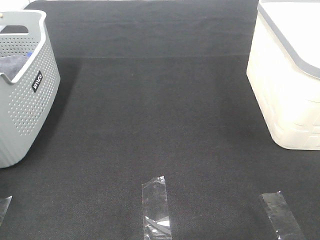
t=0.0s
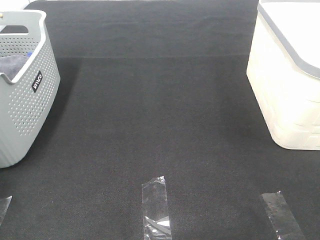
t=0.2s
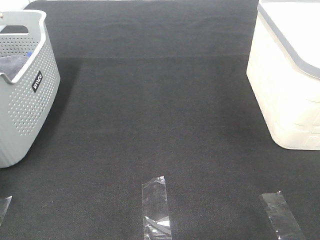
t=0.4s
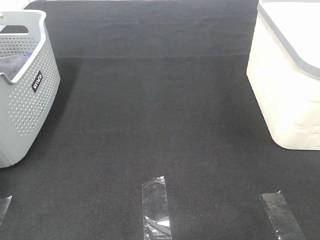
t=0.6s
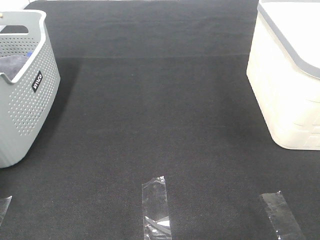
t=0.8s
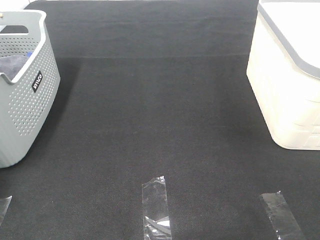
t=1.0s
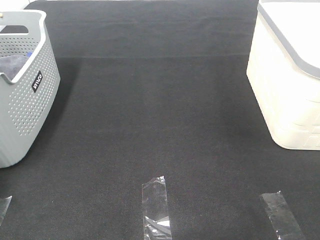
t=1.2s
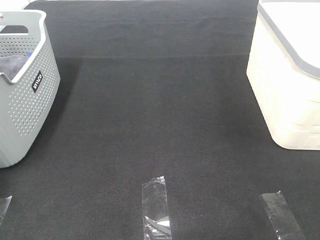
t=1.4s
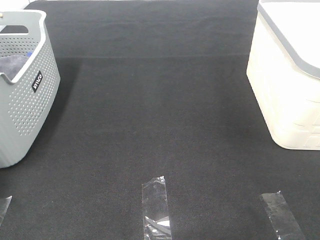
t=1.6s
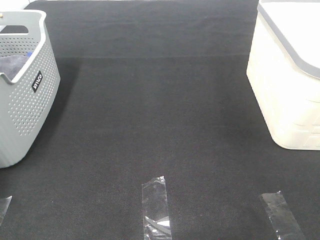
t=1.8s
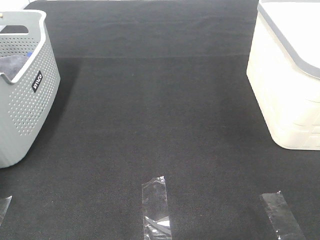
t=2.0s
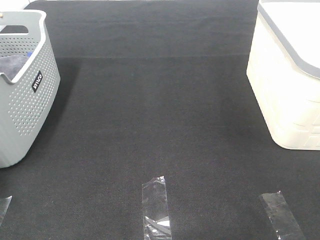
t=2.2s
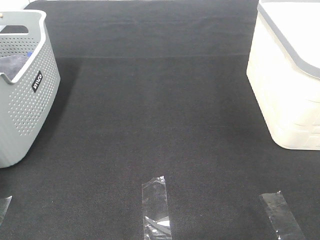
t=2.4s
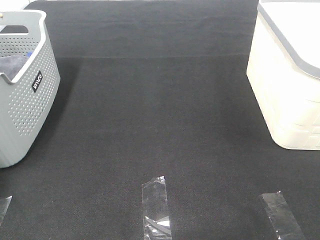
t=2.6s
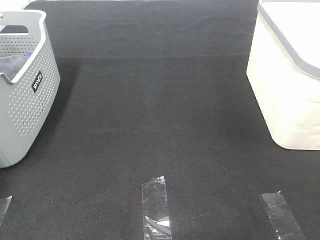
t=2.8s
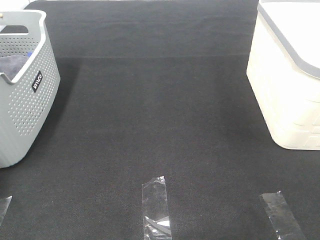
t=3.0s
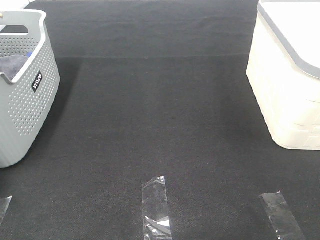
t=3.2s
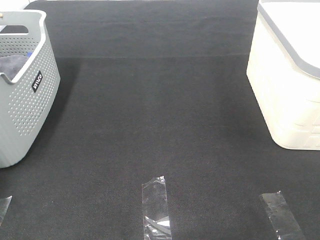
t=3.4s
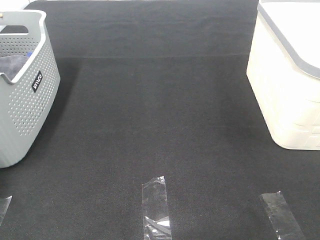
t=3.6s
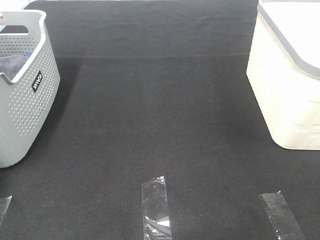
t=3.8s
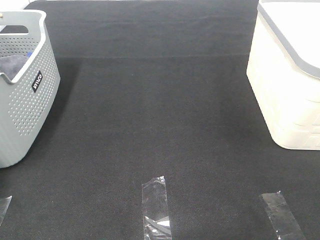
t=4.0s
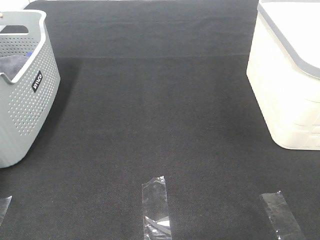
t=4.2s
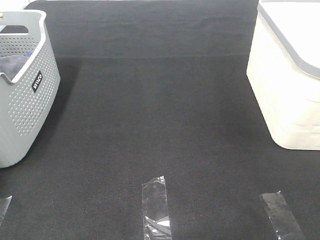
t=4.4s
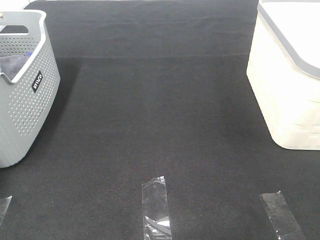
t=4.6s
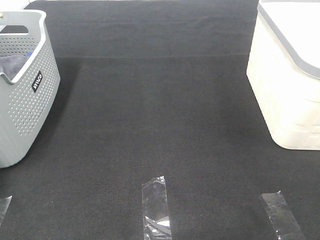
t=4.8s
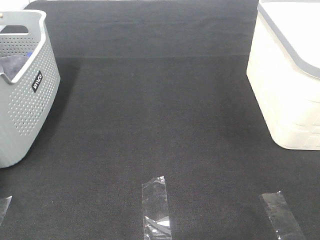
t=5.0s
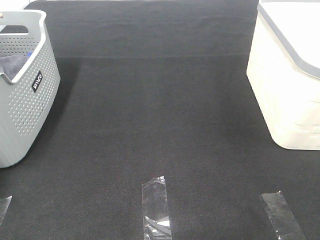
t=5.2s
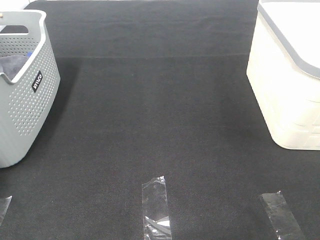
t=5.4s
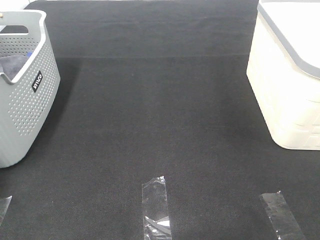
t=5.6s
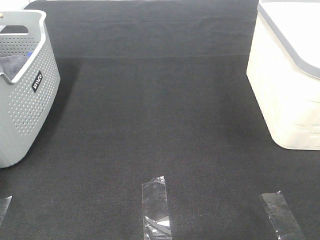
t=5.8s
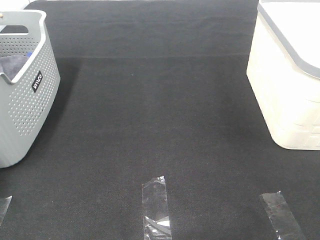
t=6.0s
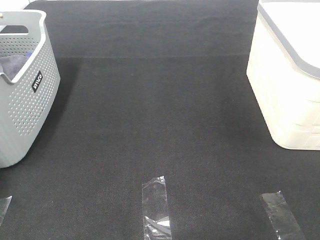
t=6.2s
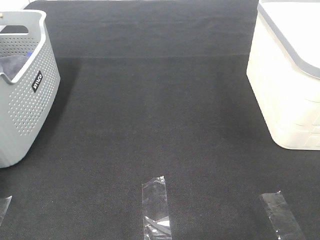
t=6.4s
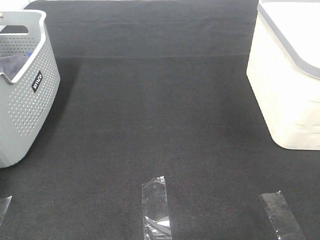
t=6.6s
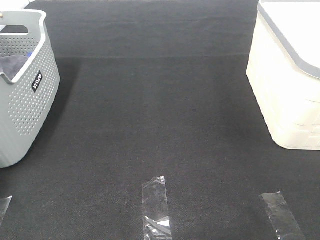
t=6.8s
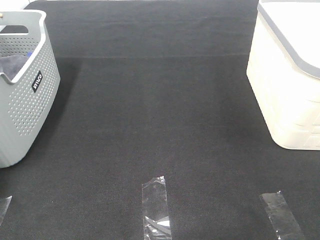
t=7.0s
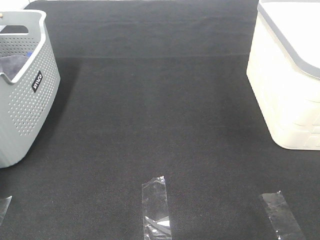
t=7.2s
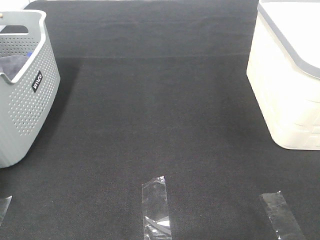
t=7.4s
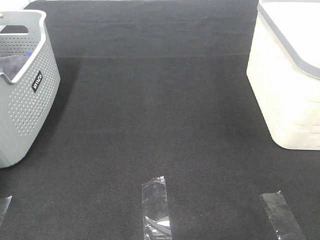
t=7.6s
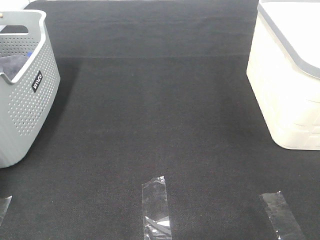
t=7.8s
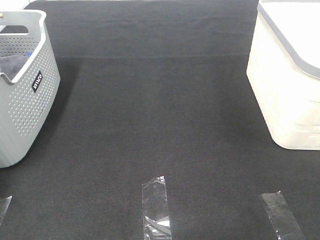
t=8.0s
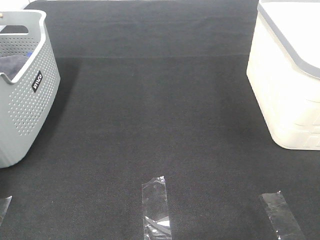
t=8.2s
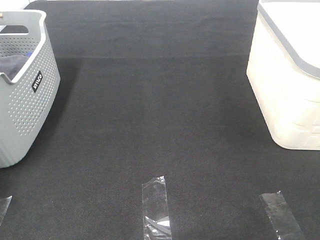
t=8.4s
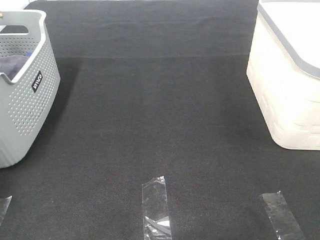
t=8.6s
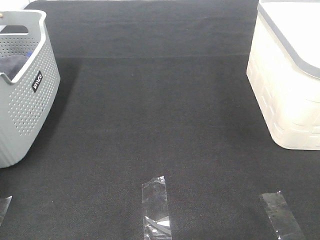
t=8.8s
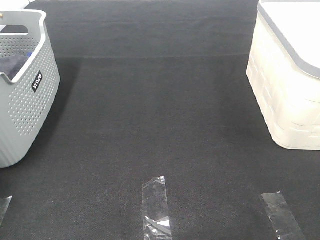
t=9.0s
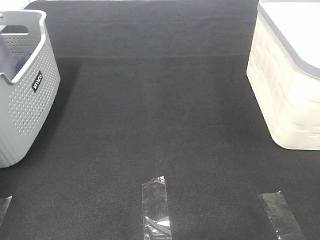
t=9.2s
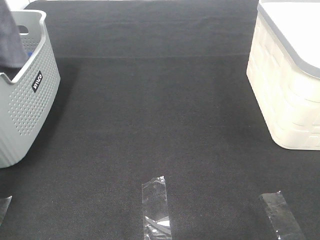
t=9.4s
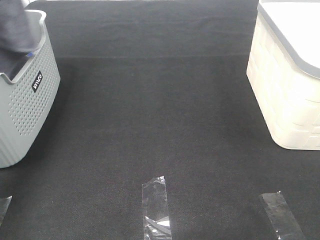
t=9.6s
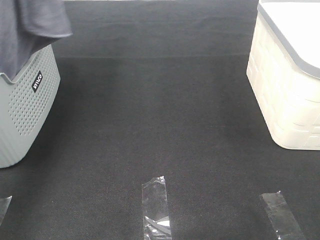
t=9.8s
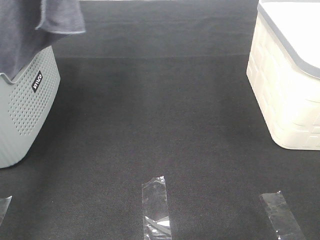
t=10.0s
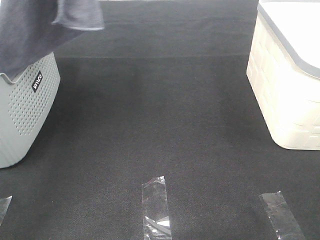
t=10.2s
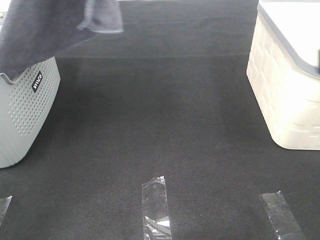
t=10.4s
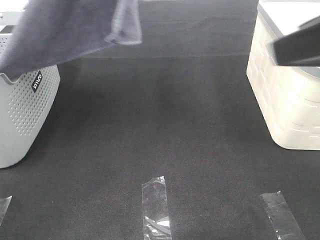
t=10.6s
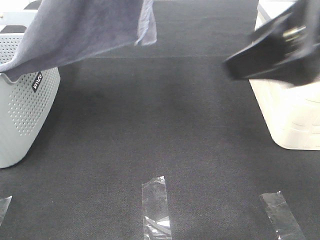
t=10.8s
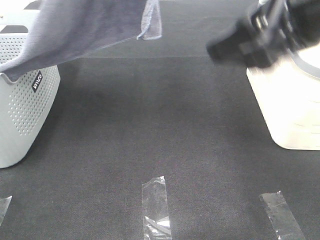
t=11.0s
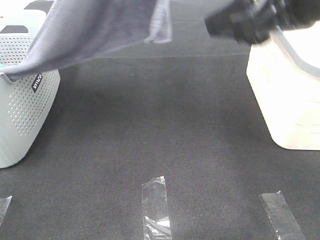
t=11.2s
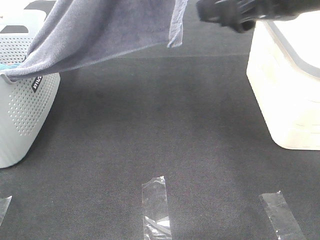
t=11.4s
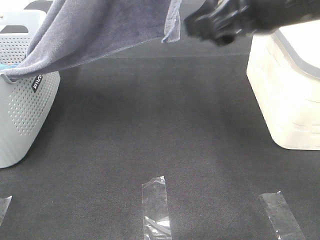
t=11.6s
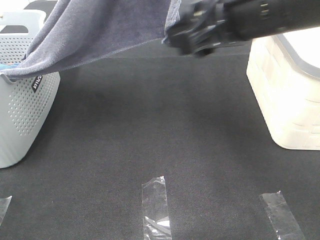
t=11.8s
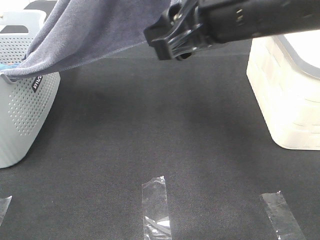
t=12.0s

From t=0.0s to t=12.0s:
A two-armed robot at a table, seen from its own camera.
Task of the whole recording: Remove the towel and place it.
From t=7.6s to t=9.0s: The left gripper is displaced upward by some 20 cm.
From t=9.0s to t=10.4s: The right gripper travels forward, upward and to the left by roughly 15 cm. The left gripper travels to the right and upward by approximately 25 cm.
From t=10.4s to t=12.0s: The right gripper moves to the left and forward, some 20 cm. Meanwhile the left gripper shifts some 10 cm to the right.

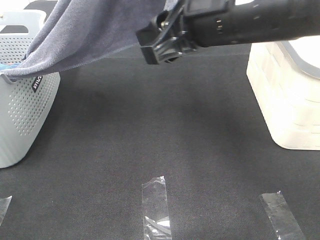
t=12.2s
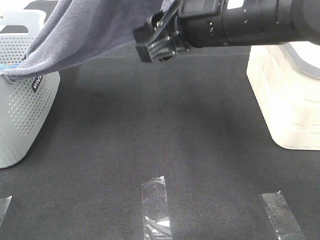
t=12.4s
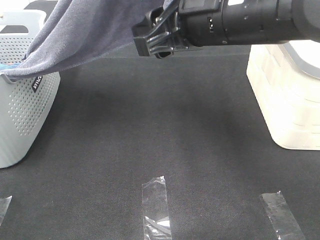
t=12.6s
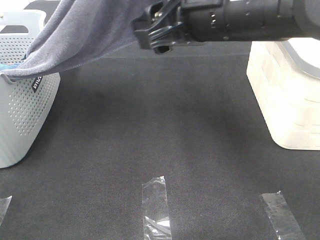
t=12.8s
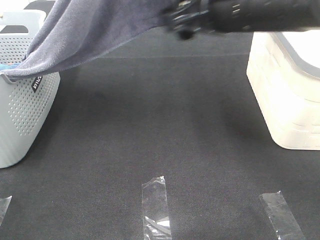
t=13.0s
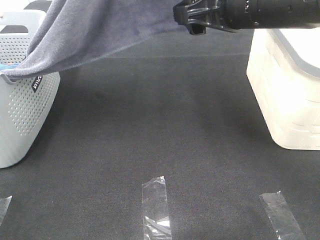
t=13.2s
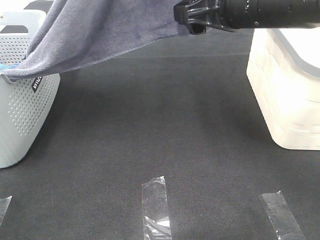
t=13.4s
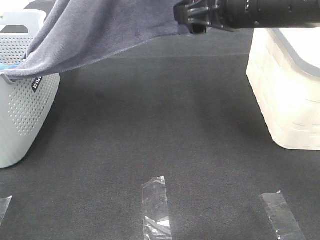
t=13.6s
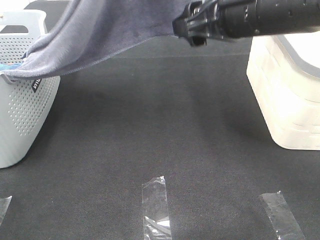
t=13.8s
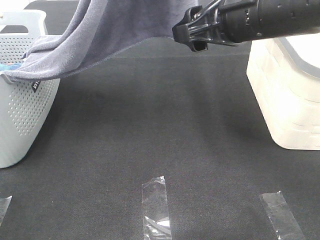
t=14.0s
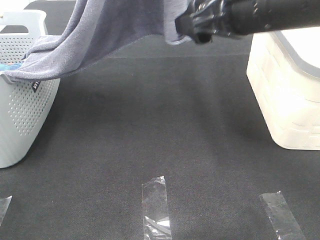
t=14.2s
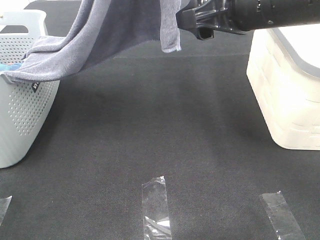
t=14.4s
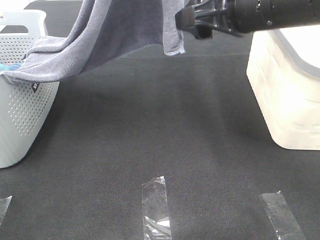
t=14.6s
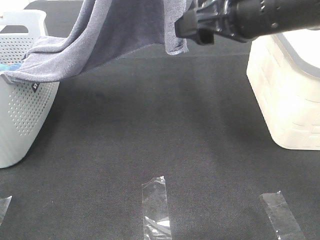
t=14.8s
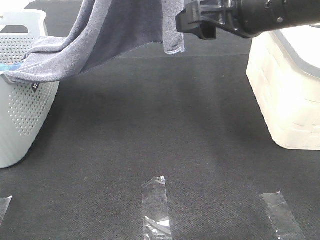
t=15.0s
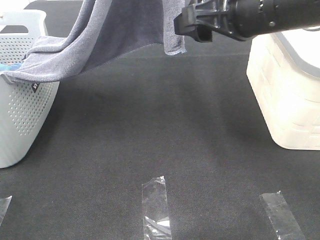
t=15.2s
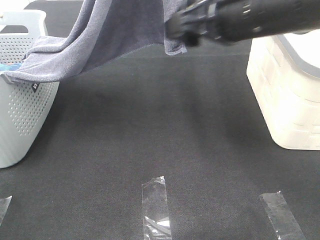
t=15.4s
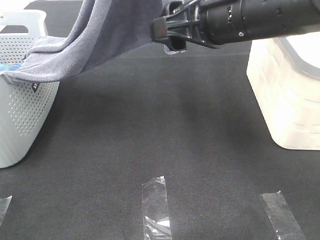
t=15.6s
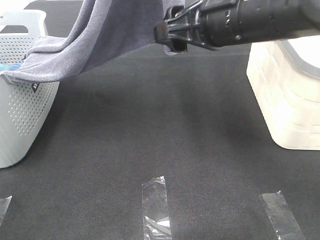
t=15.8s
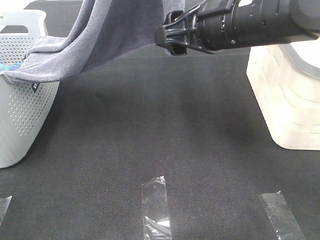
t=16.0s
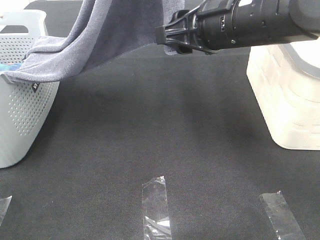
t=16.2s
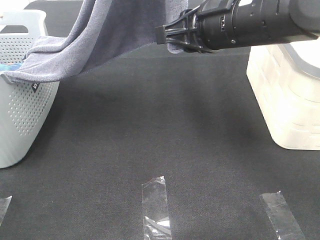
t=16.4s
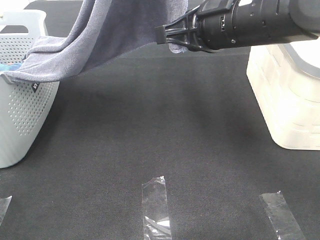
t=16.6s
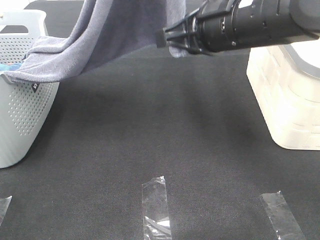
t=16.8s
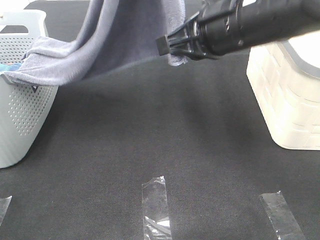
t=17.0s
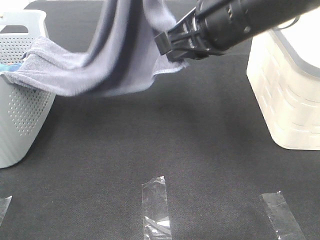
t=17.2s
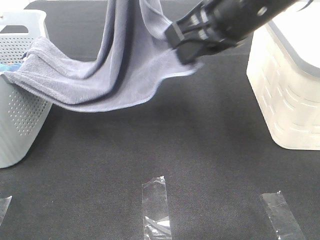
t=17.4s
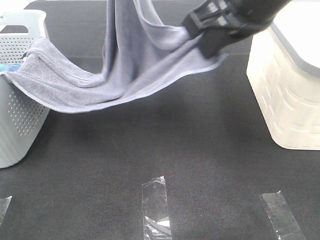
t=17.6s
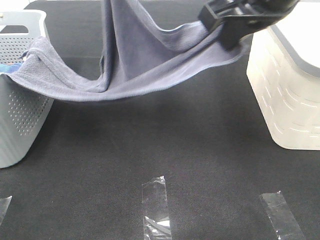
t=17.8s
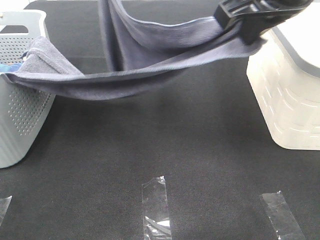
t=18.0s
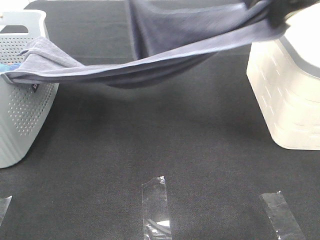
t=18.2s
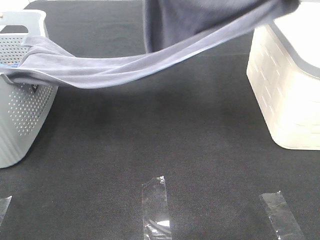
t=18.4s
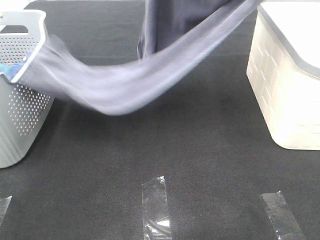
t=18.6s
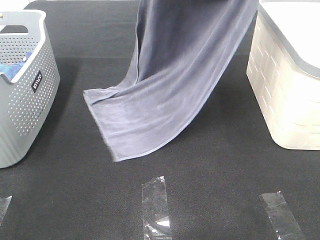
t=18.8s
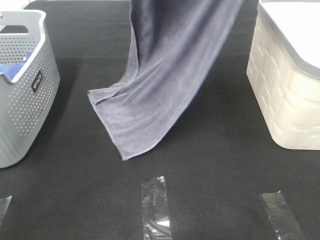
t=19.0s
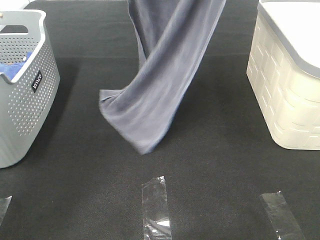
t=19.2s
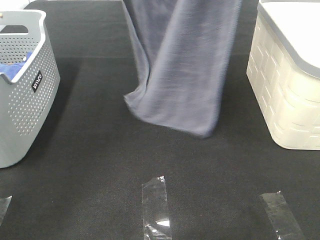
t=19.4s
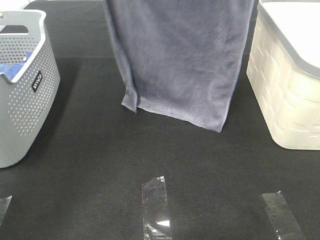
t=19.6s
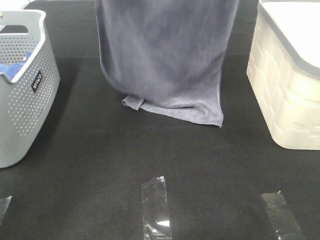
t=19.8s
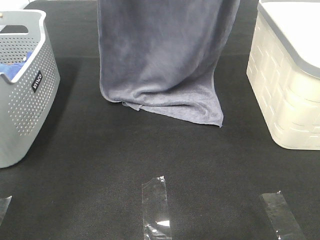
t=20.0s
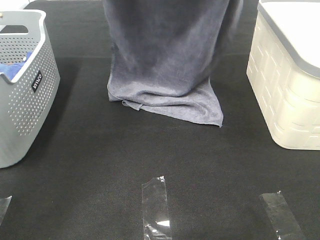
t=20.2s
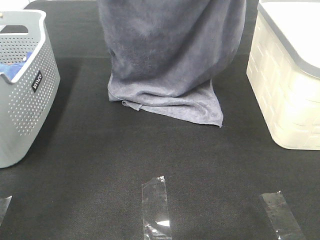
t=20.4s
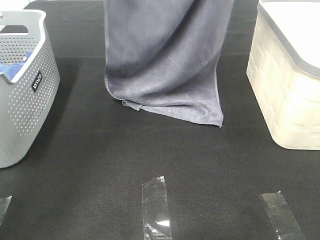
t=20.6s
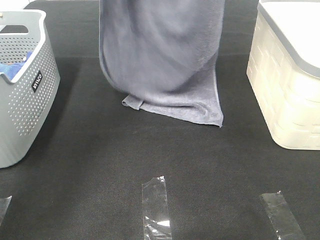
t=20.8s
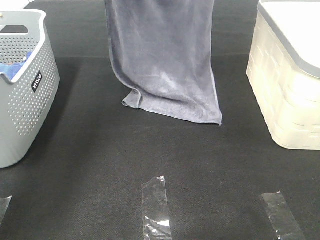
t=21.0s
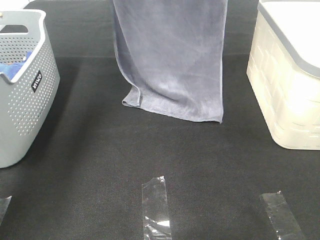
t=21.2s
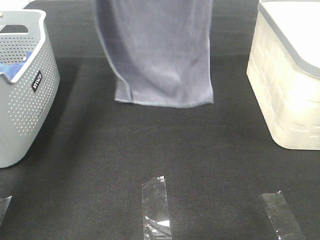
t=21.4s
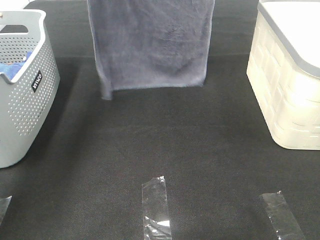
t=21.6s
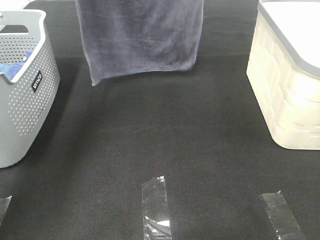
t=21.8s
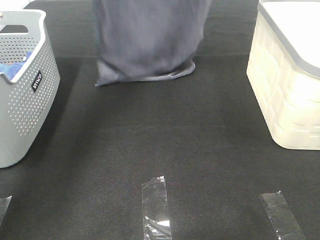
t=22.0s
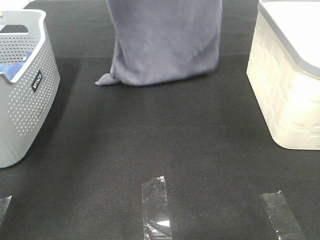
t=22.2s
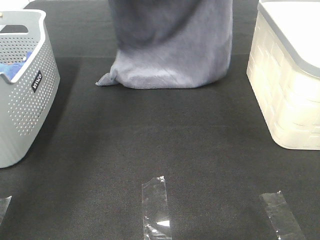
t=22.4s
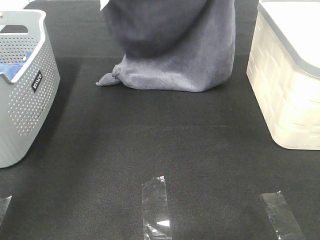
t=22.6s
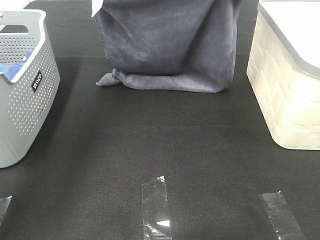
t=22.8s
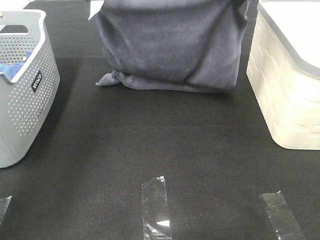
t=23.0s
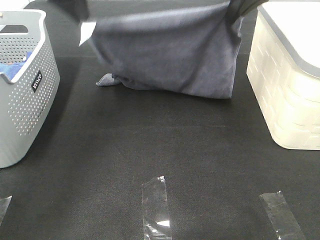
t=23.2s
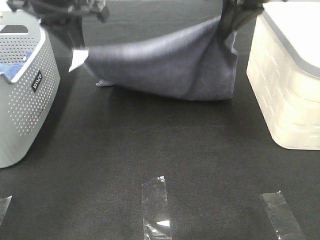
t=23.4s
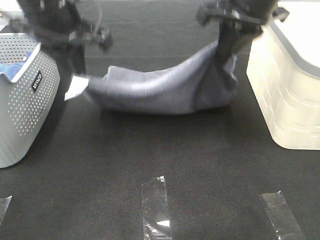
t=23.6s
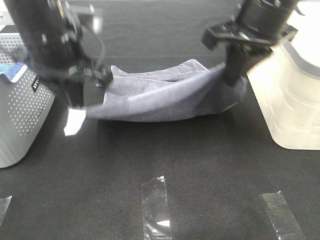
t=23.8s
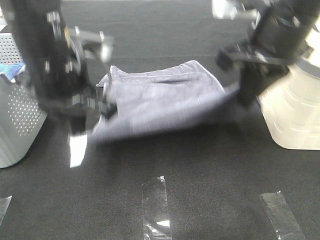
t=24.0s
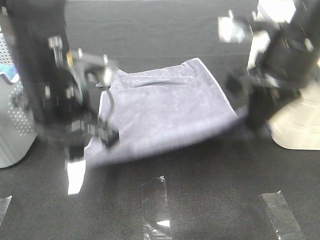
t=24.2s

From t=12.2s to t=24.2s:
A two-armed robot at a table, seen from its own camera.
Task of the whole recording: Remove the towel and place it.
Step, from t=12.2s to t=16.0s: Right hand: grab a corner of the grey towel and straighten it.
Step, from t=16.2s to t=21.4s: Left hand: spread the grey towel flat on the table.
Step, from t=16.2s to t=21.4s: Right hand: spread the grey towel flat on the table.
From t=12.2s to t=13.8s: The right gripper moves approximately 5 cm.
From t=13.8s to t=15.2s: The grippers make only small movements.
From t=15.2s to t=16.6s: The right gripper closes up.
From t=16.6s to t=18.2s: The left gripper shifts approximately 10 cm downward. Meanwhile the right gripper goes some 10 cm upward and to the right.
From t=18.2s to t=19.8s: The right gripper moves forward and upward, roughly 10 cm. The left gripper moves to the left, forward and upward, approximately 10 cm.
From t=19.8s to t=21.2s: The right gripper moves forward, roughly 10 cm. Meanwhile the left gripper moves forward and downward, approximately 10 cm.
From t=21.2s to t=22.6s: The right gripper moves roughly 10 cm upward and comes back, while the left gripper moves some 5 cm.
From t=22.6s to t=24.2s: Both grippers travel together backward and downward, some 25 cm.
